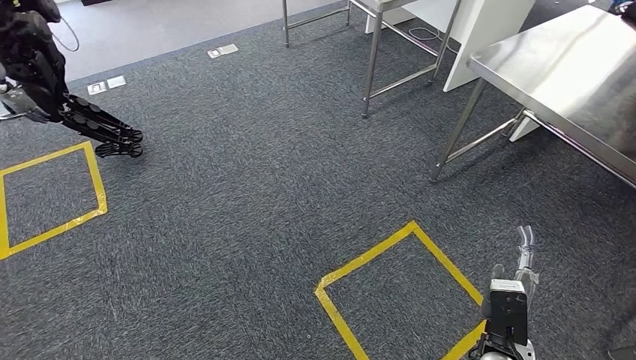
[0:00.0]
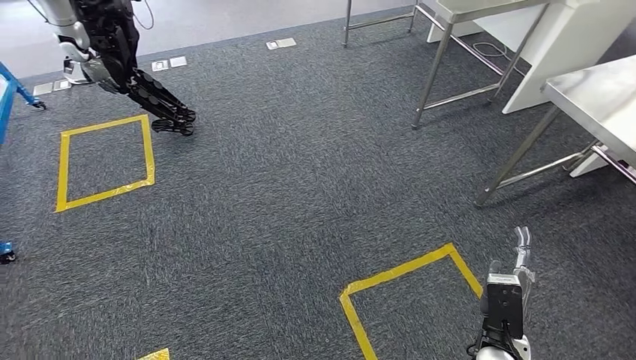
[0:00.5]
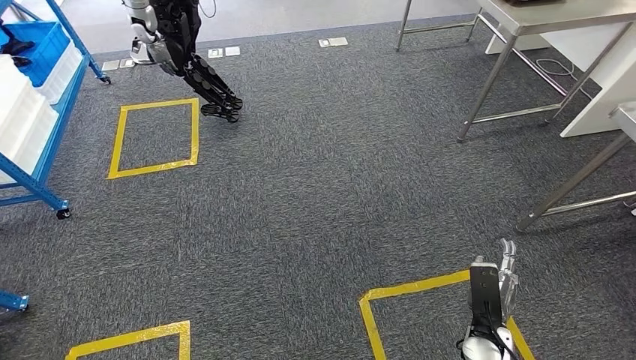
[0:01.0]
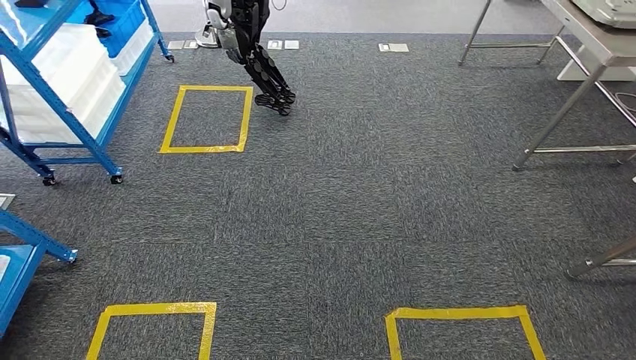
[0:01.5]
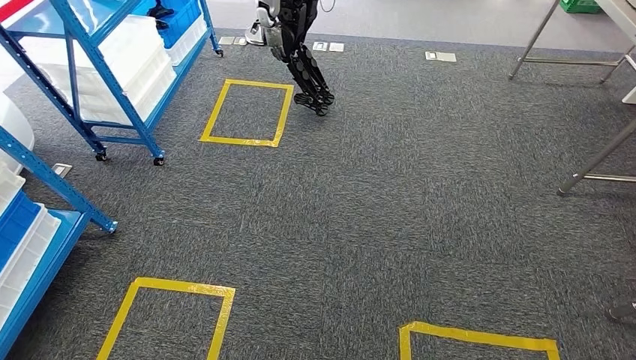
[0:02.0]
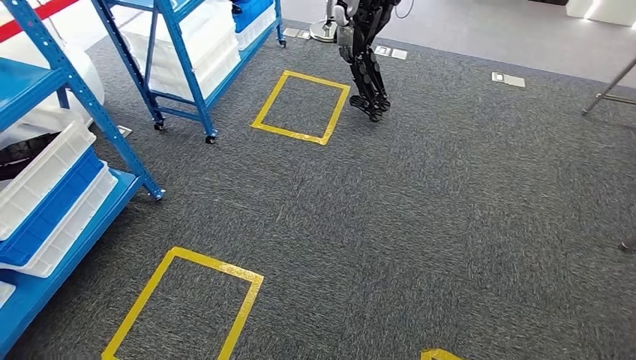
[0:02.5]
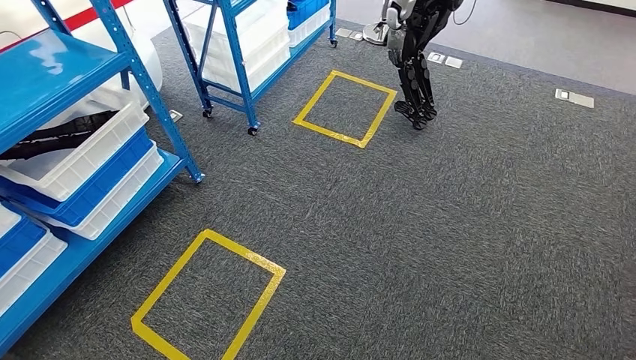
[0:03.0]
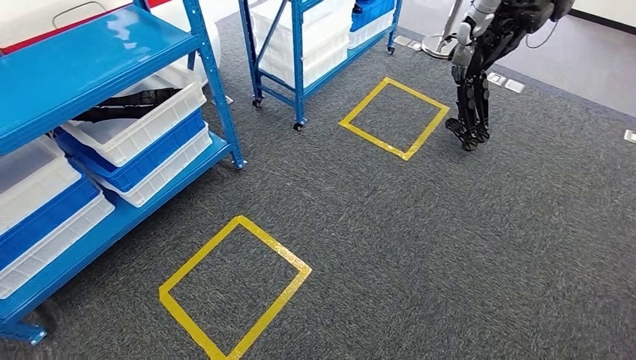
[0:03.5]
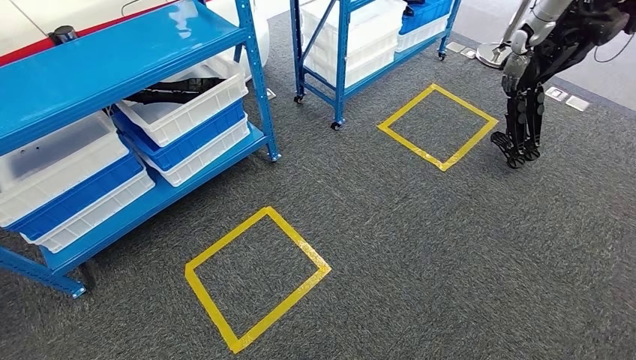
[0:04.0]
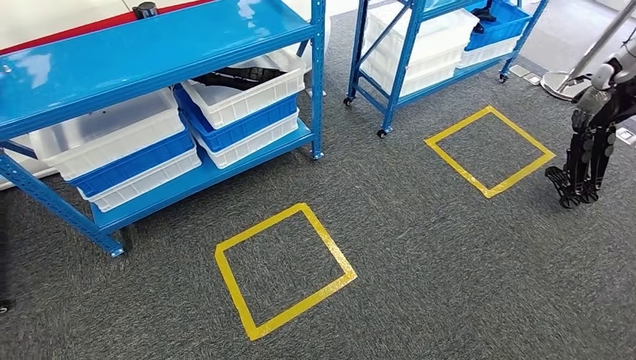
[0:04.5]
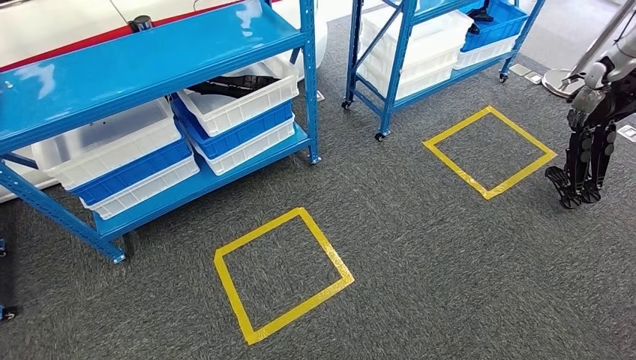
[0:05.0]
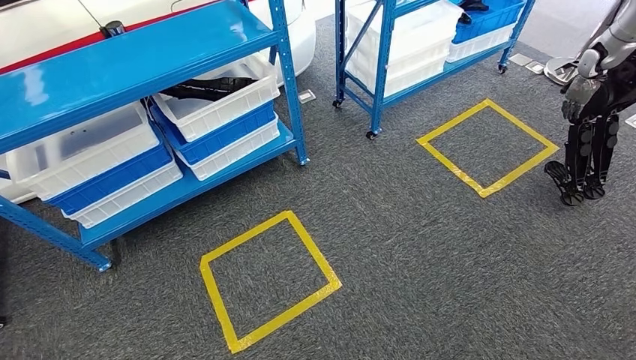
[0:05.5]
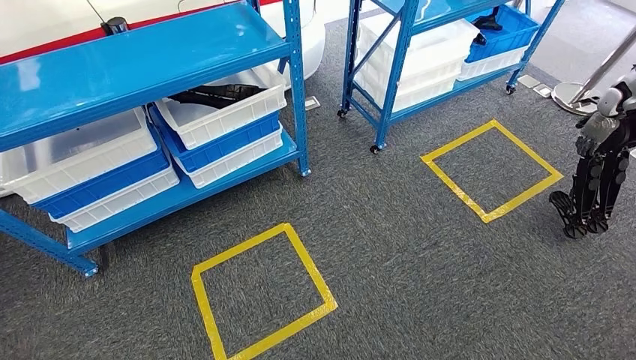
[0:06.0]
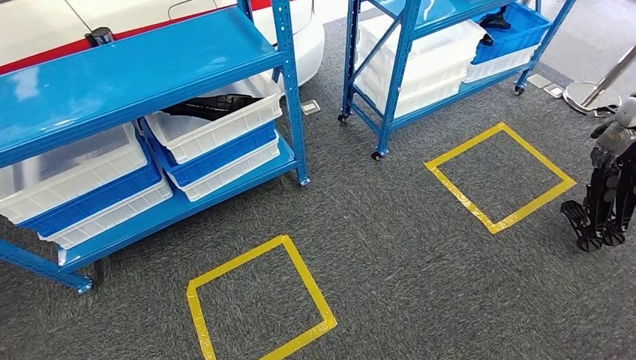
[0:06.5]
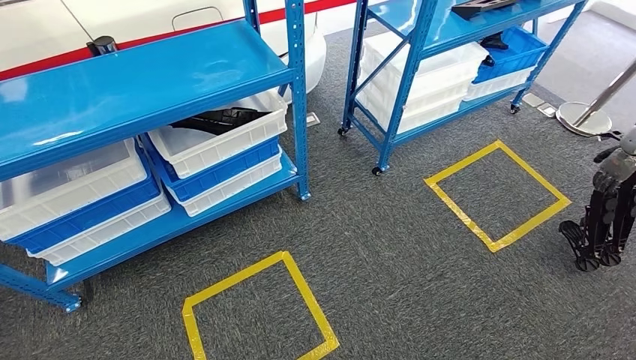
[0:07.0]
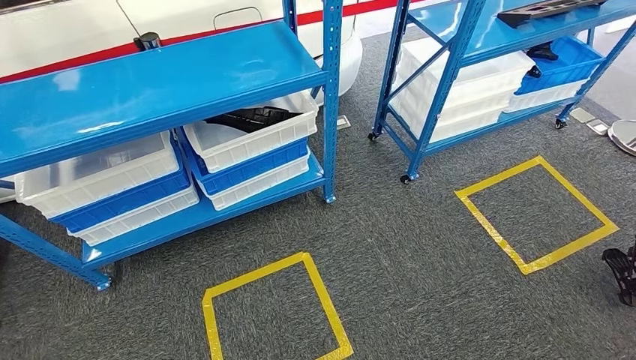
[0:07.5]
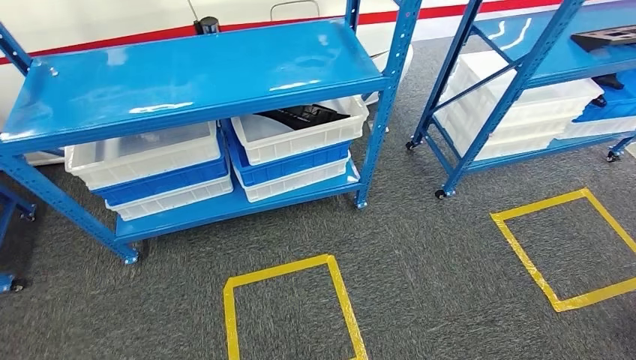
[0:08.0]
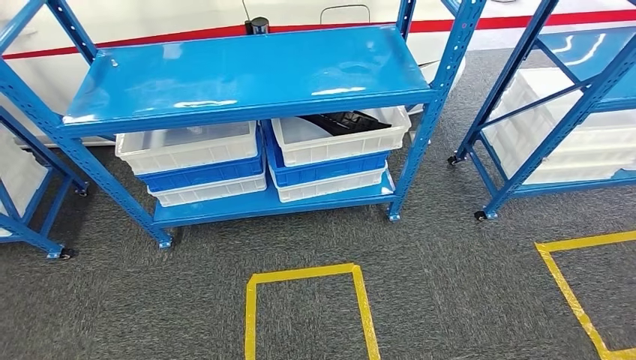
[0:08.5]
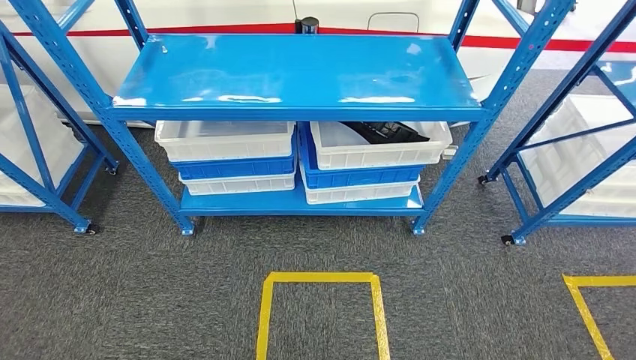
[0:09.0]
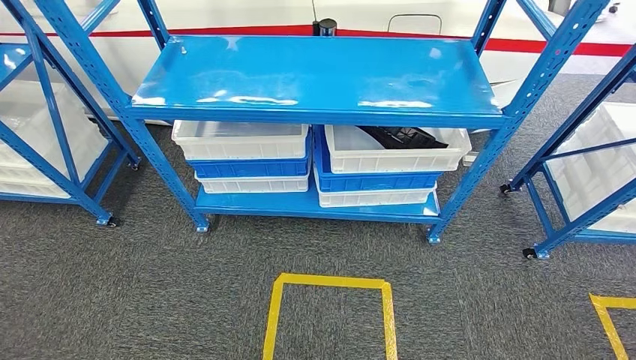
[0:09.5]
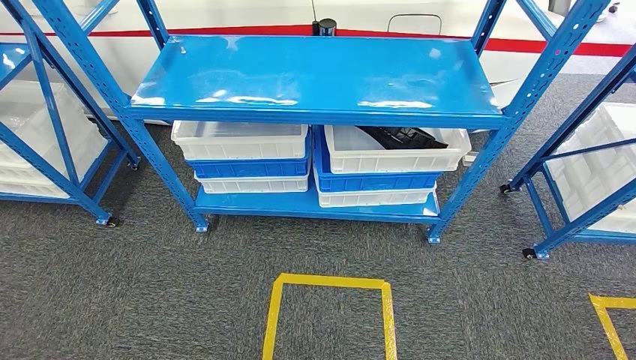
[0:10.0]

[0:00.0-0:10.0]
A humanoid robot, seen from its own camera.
Step, 0:00.0 to 0:10.0: Return to the initial position at the shelf.
